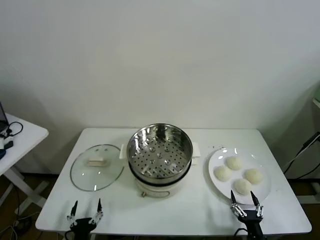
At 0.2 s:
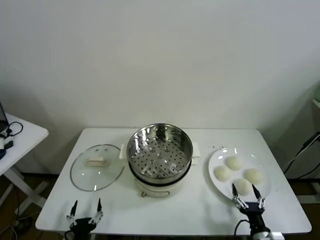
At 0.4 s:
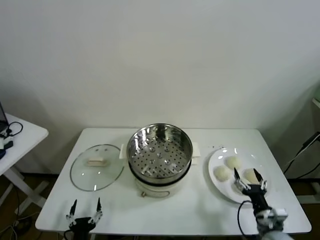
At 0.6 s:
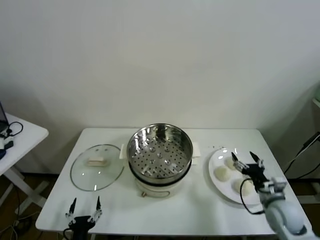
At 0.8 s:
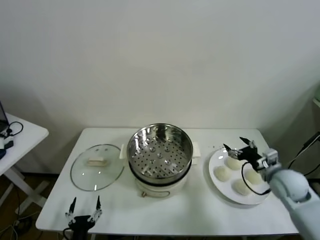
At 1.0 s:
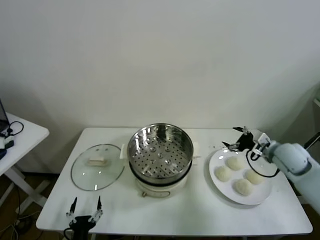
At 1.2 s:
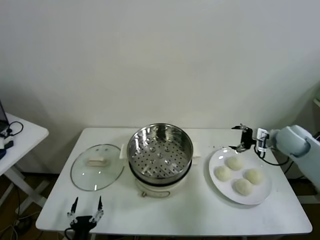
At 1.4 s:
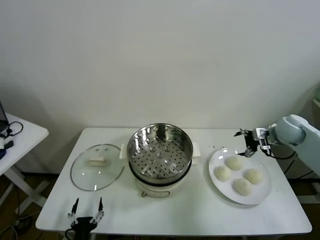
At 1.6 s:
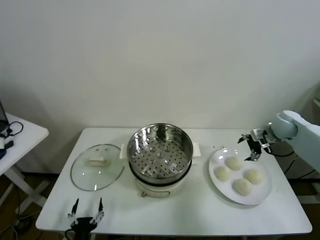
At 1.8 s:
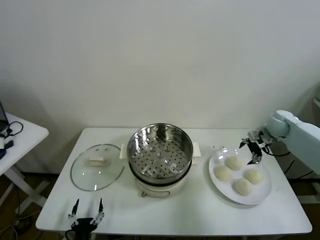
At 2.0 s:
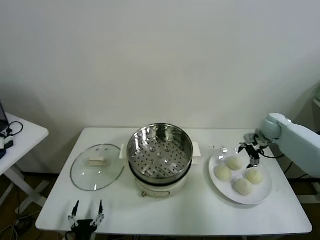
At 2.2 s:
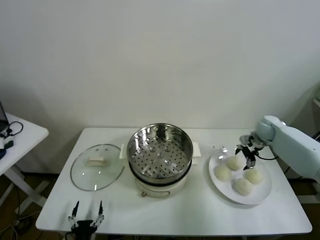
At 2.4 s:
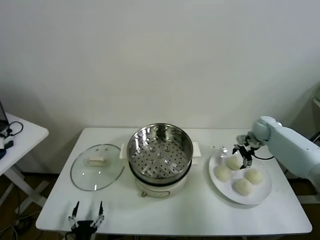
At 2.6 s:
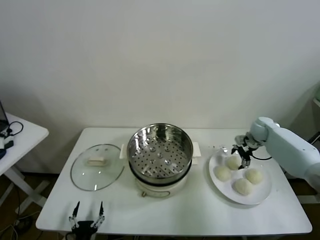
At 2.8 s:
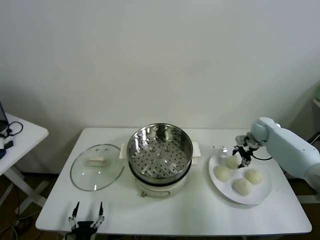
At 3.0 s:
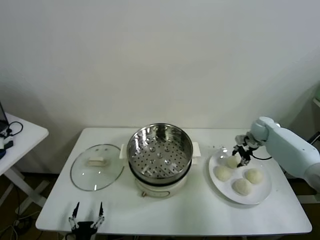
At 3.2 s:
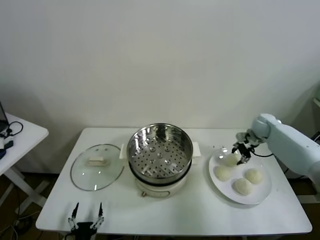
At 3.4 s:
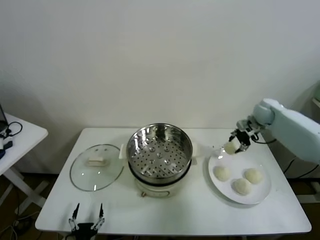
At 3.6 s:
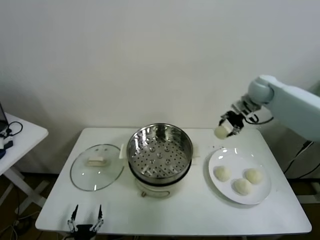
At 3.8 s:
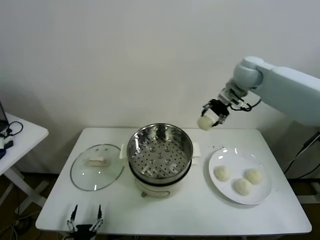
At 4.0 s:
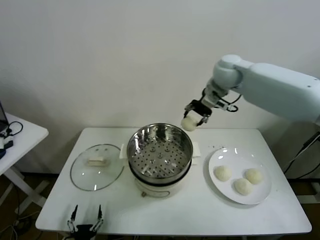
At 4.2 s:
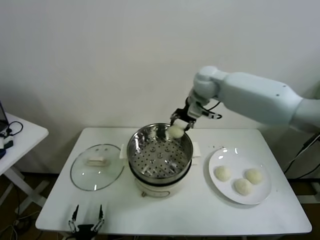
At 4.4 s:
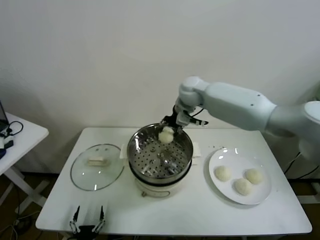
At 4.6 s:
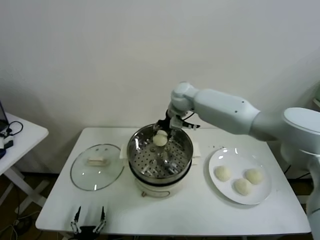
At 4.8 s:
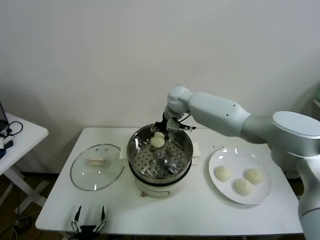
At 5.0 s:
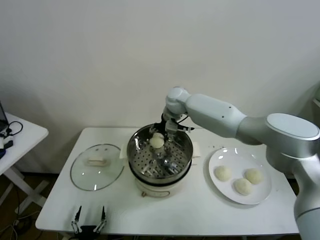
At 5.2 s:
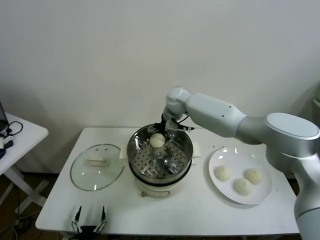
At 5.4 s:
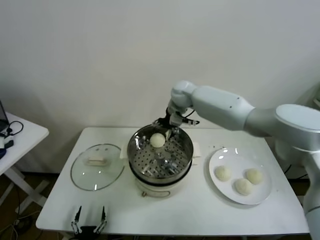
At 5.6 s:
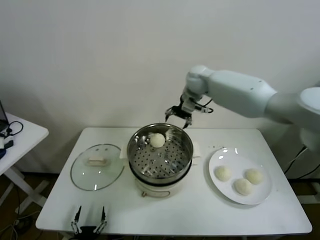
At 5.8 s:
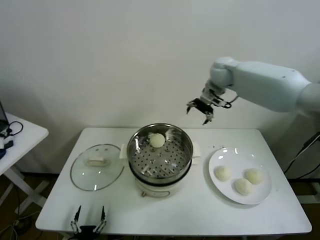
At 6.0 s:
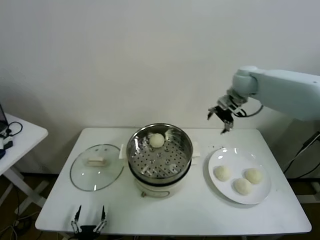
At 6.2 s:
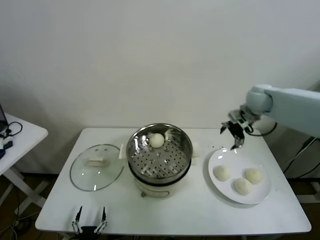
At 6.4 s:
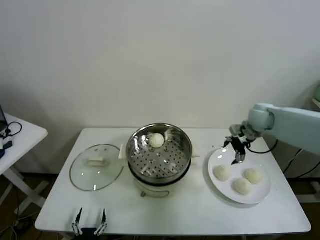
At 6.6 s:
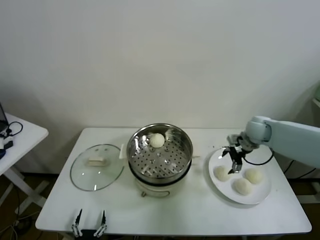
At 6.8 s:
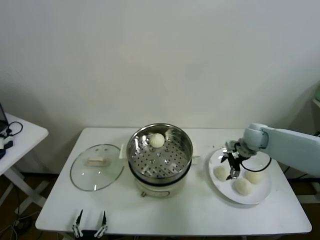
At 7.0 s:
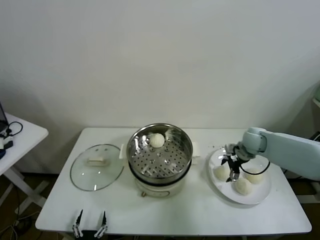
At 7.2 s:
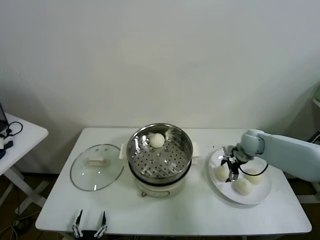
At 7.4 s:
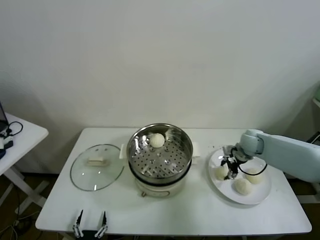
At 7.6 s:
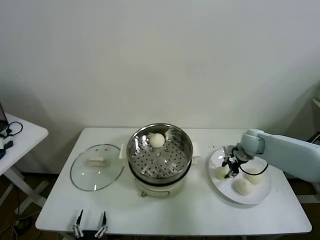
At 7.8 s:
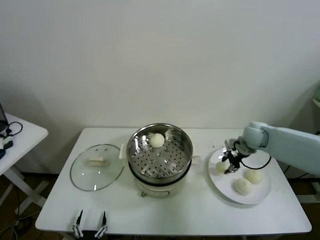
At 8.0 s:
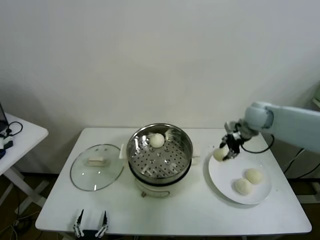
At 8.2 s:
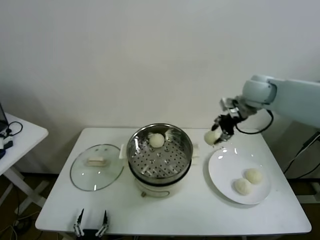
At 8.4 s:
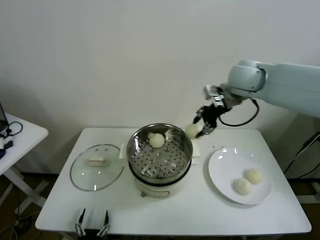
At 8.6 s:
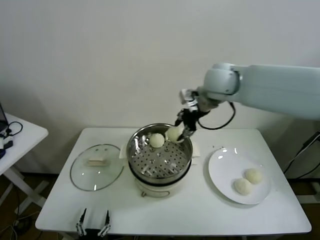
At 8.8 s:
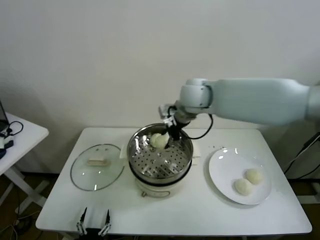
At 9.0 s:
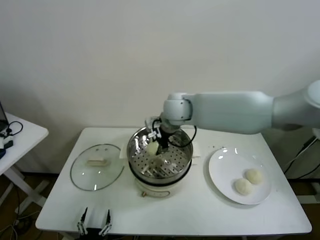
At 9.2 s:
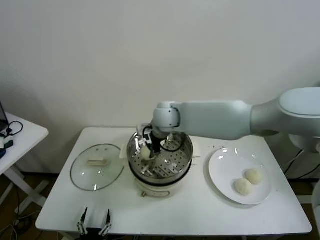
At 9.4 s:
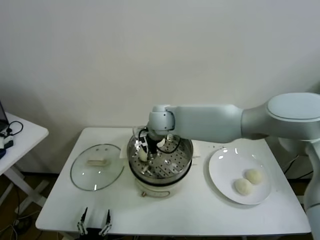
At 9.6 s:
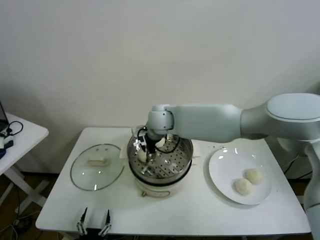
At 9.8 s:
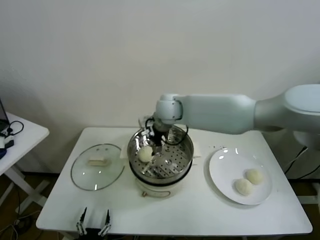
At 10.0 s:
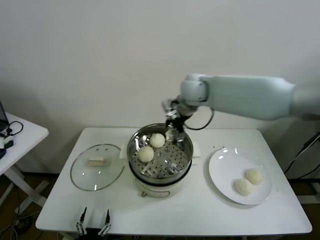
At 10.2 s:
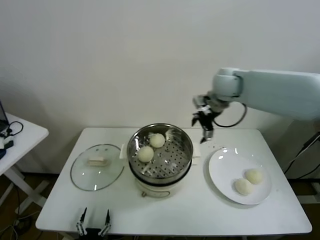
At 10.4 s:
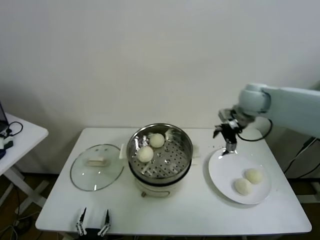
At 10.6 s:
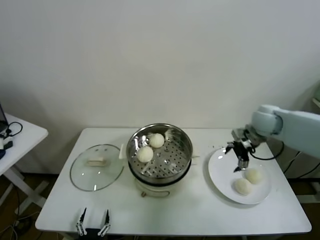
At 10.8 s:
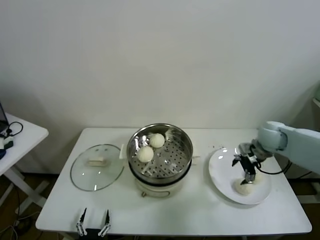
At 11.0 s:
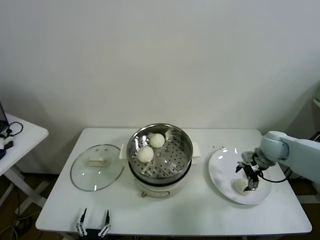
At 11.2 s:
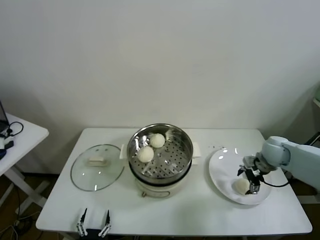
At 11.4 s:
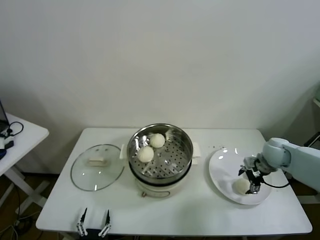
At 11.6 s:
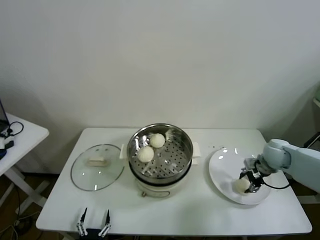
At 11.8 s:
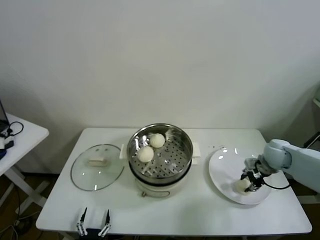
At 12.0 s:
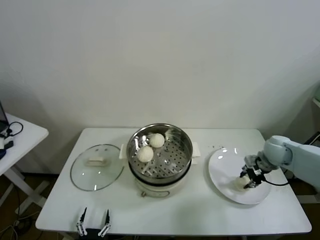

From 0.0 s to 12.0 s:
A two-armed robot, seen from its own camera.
Task of the whole recording: take steamed baozi put them in steamer.
Step, from 0.0 s to 2.8 s: Grasp the baozi in the plate with right gripper.
Step, from 3.0 s to 5.0 s: Place the baozi on the steamer with right gripper.
Step, from 5.4 s to 7.2 s: Grasp the baozi in the plate with right gripper.
Step, from 7.6 s to 9.6 s: Place the baozi on the steamer with right gripper.
Step, from 9.8 s to 11.6 s: Grasp the baozi in the plate with right gripper.
From 1.6 s to 3.0 s: The right gripper heads downward, covering roughly 5 cm, and closes.
From 3.0 s to 4.4 s: The right gripper is displaced to the left and upward by some 35 cm.
From 4.4 s to 6.0 s: The right gripper is displaced to the right by roughly 20 cm, and opens.
From 6.0 s to 7.6 s: The right gripper travels downward by roughly 20 cm, and closes its fingers.
From 7.6 s to 9.0 s: The right gripper goes roughly 35 cm to the left and upward.
From 9.0 s to 10.4 s: The right gripper moves to the right, some 25 cm, and opens.
From 10.4 s to 12.0 s: The right gripper goes roughly 20 cm downward, to the right and backward, and closes its fingers.

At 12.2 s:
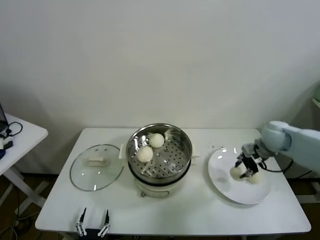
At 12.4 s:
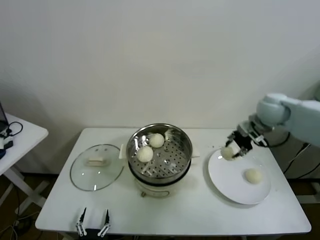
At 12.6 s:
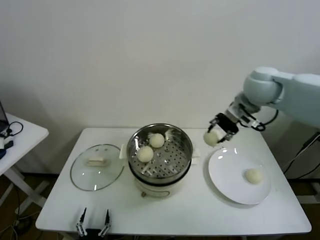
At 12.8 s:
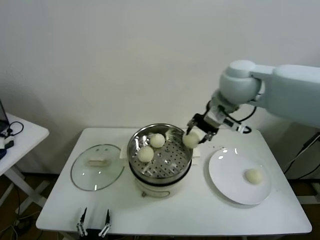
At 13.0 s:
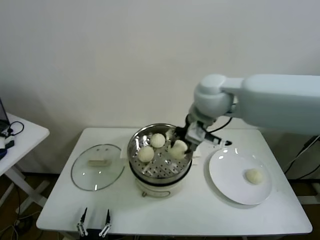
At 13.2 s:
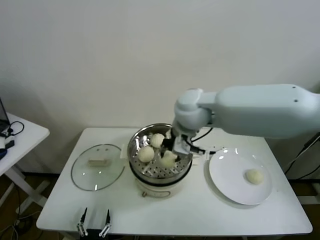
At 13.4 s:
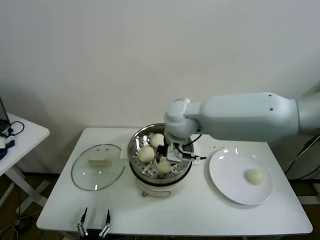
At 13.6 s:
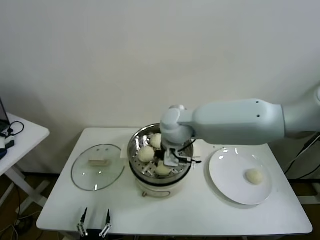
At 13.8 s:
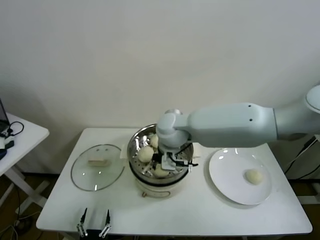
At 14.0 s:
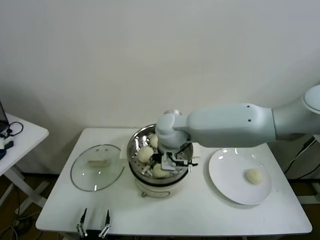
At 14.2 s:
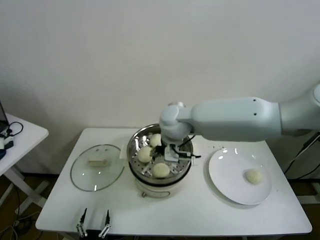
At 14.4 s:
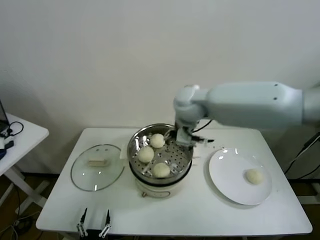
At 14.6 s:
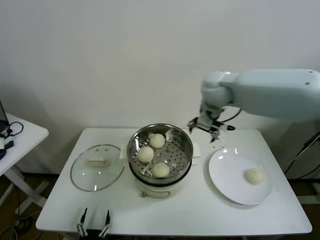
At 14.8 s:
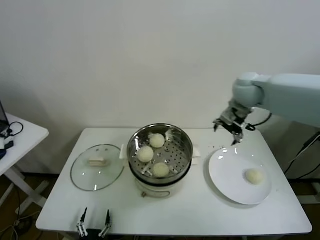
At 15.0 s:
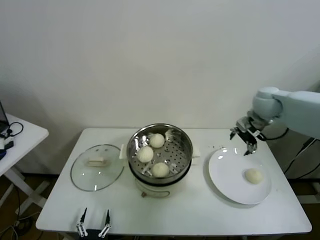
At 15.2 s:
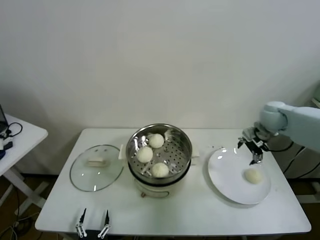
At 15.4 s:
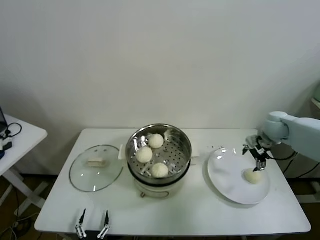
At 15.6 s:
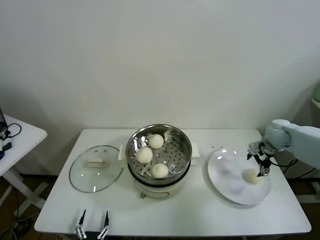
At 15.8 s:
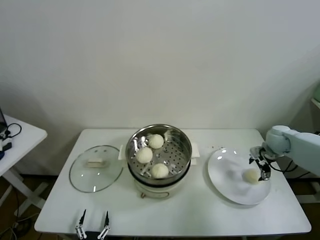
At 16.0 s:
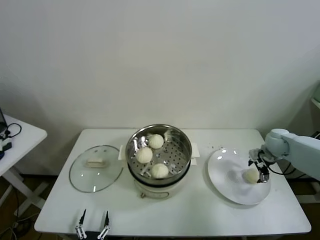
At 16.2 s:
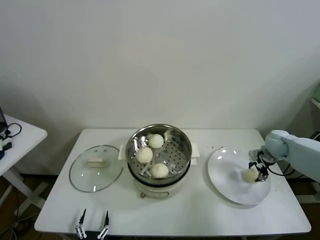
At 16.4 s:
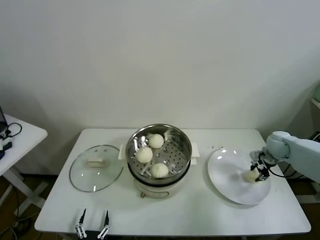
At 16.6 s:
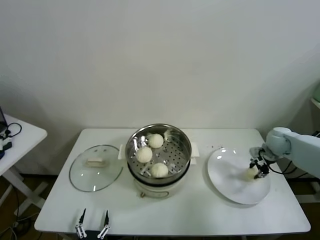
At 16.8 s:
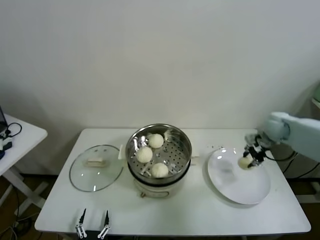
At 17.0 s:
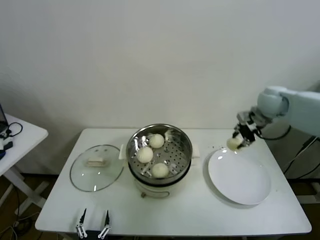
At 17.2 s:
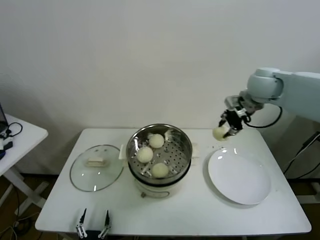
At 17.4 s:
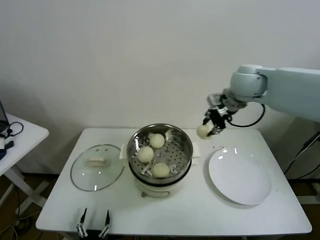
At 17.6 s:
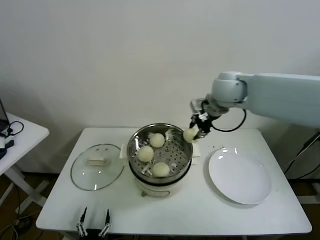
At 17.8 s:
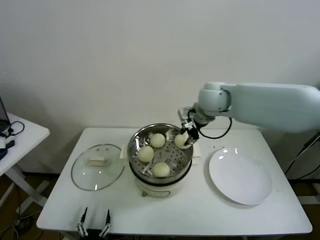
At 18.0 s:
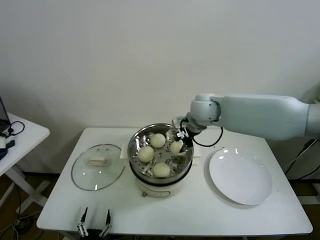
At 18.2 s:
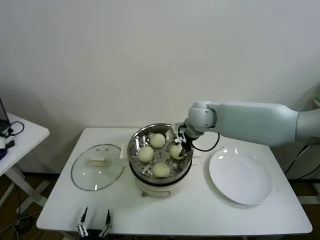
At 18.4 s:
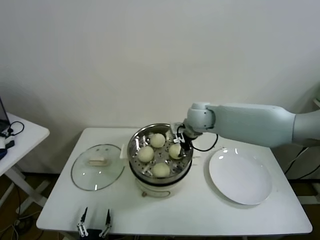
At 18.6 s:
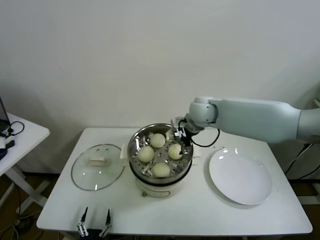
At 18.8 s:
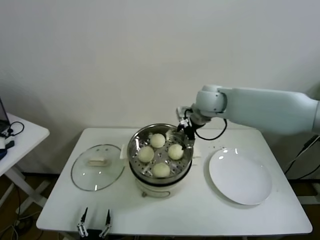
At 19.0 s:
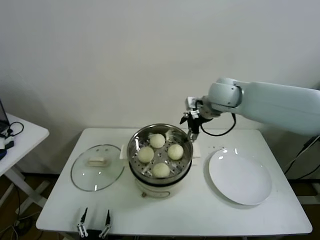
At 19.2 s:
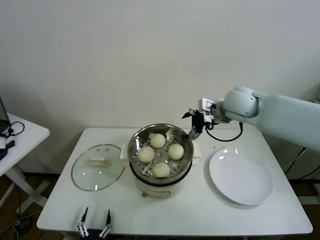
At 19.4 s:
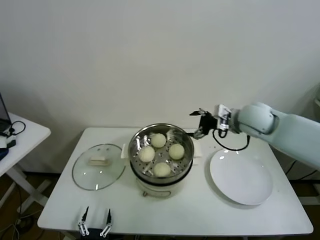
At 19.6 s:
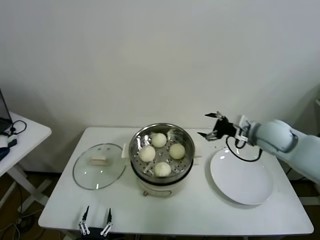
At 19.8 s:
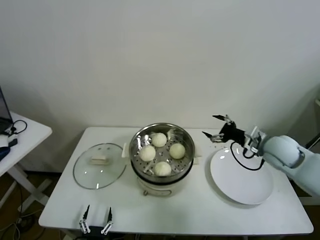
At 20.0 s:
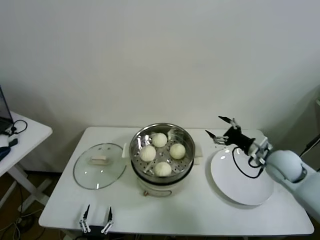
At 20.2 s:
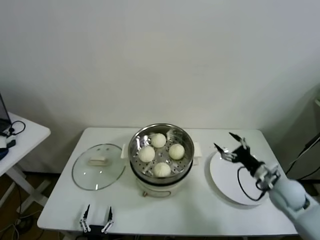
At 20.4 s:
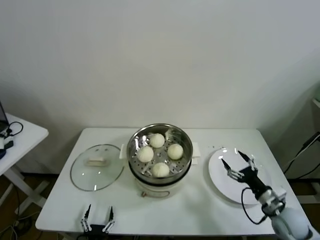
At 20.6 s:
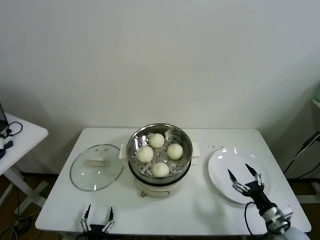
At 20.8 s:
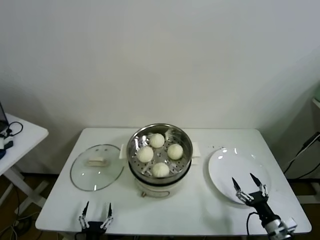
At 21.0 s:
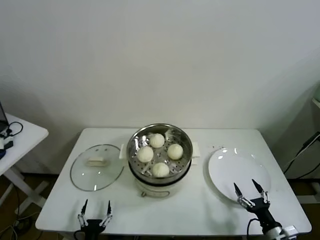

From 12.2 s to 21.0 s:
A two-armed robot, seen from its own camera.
Task of the whole recording: take steamed baozi put them in steamer.
Step, from 12.2 s to 14.0 s: Place the baozi on the steamer with right gripper.
Step, from 14.2 s to 16.2 s: Grasp the baozi in the plate with right gripper.
Step, from 16.4 s to 18.4 s: Place the baozi on the steamer with right gripper.
From 12.2 s to 13.6 s: The right gripper goes about 35 cm to the left.
From 13.6 s to 15.2 s: The right gripper is displaced to the right by some 35 cm, and opens.
From 15.2 s to 16.6 s: The right gripper is displaced downward and to the right by approximately 10 cm, and closes up.
From 16.6 s to 18.0 s: The right gripper moves to the left and upward, about 35 cm.
From 18.0 s to 19.6 s: The right gripper travels to the right by some 20 cm, and opens up.
From 19.6 s to 21.0 s: The right gripper is displaced downward and backward by approximately 40 cm.
